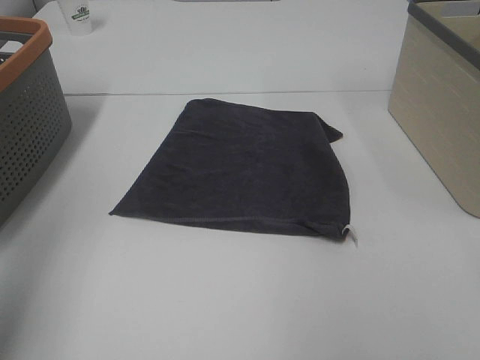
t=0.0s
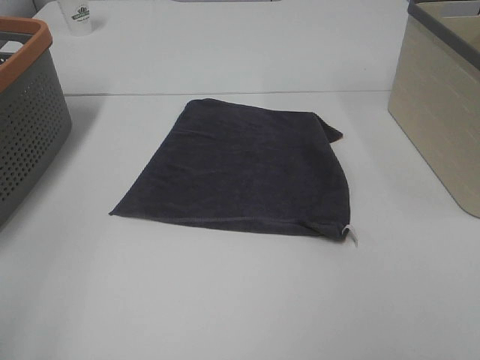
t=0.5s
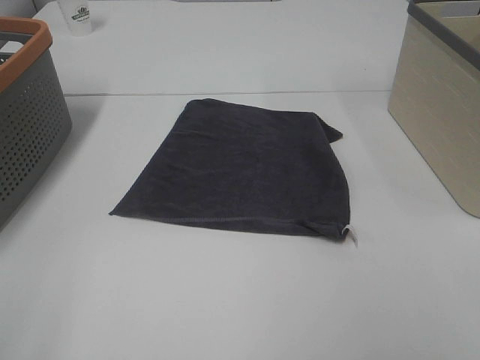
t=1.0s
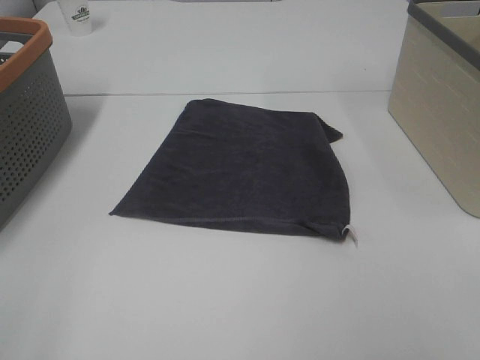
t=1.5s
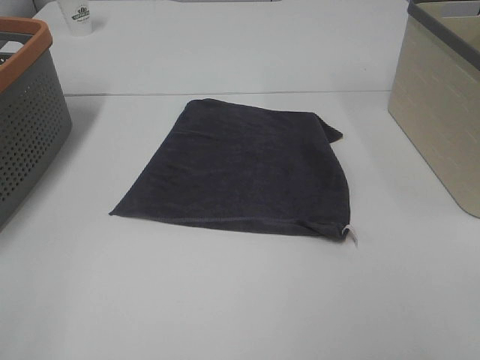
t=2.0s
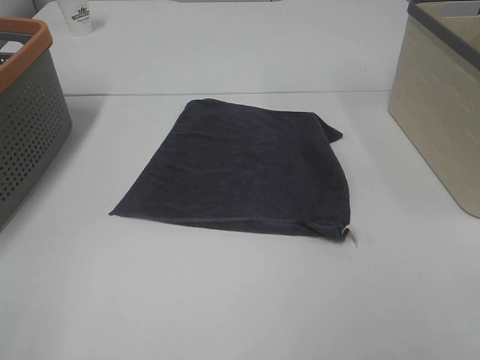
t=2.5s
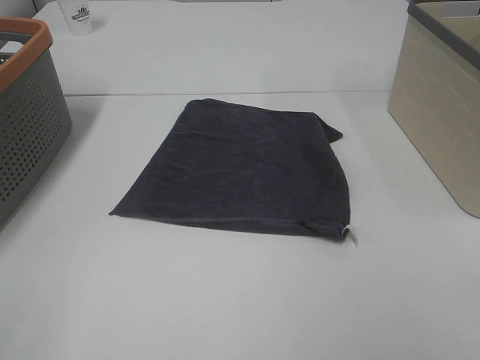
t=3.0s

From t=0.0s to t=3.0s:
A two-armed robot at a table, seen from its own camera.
Task of the whole recording: Remove the towel and place it.
From t=0.0s to t=1.5s: The left gripper shifts some 15 cm backward and downward.
From t=1.5s to t=3.0s: Both grippers stay about where they are.

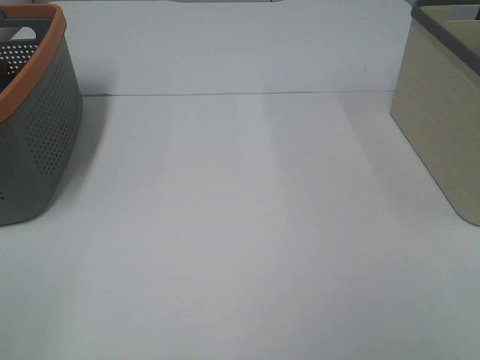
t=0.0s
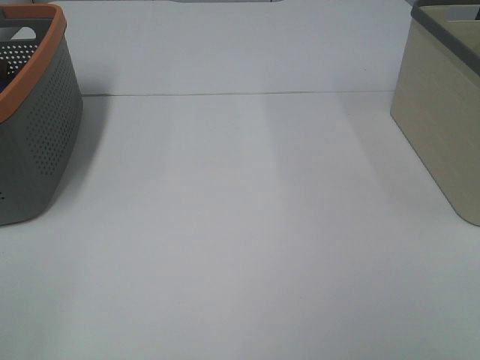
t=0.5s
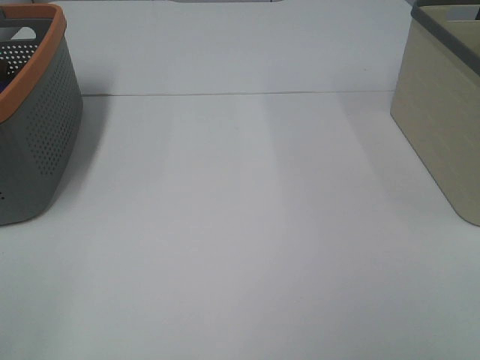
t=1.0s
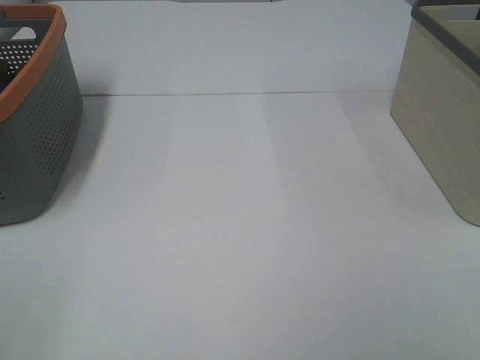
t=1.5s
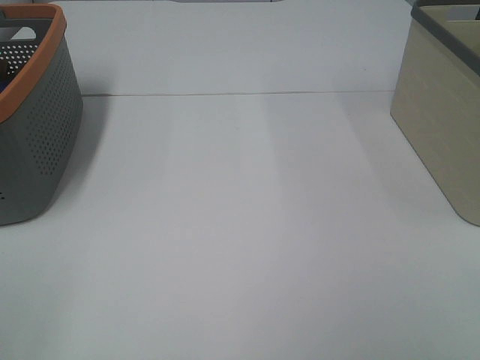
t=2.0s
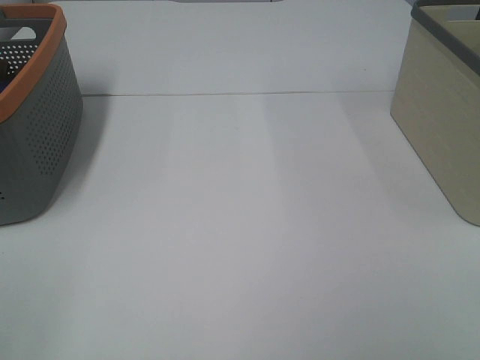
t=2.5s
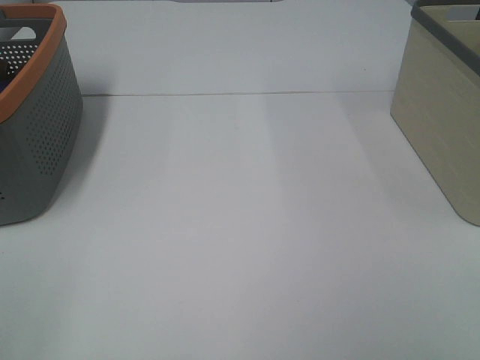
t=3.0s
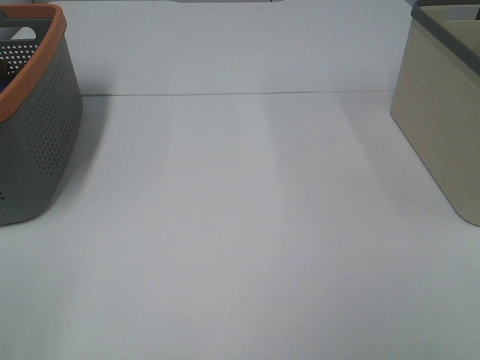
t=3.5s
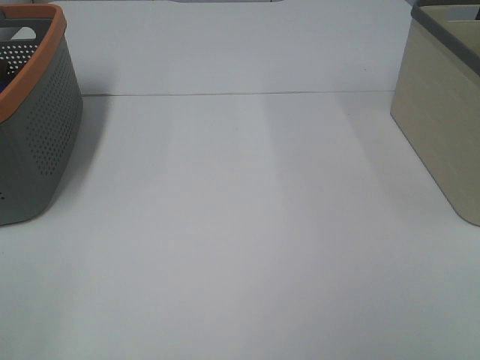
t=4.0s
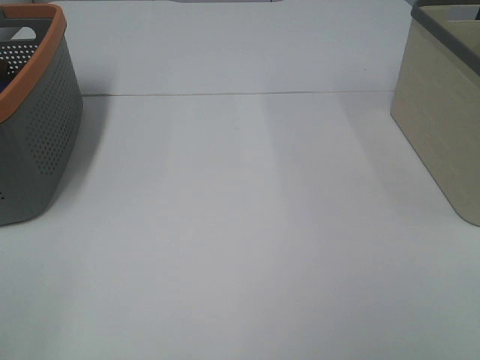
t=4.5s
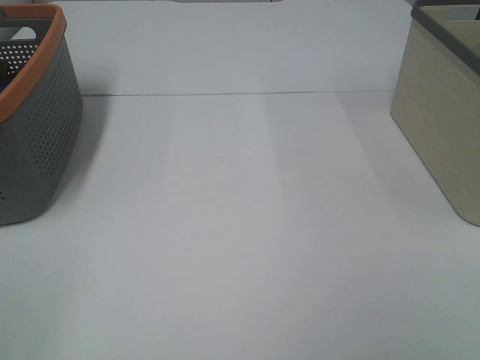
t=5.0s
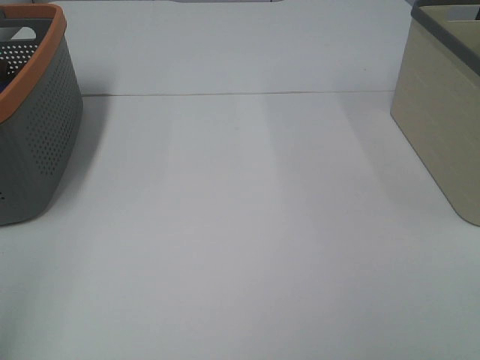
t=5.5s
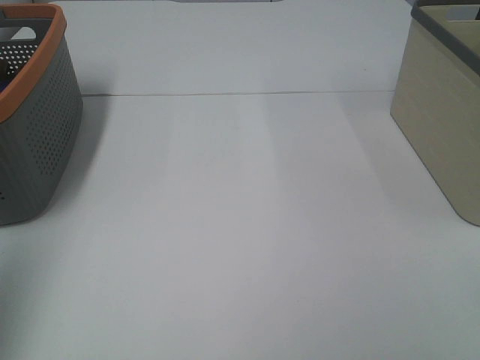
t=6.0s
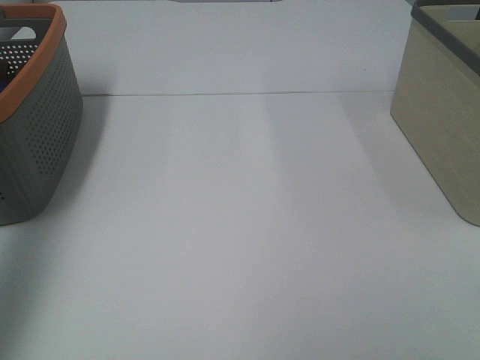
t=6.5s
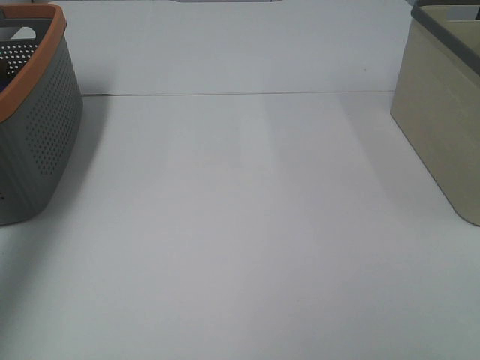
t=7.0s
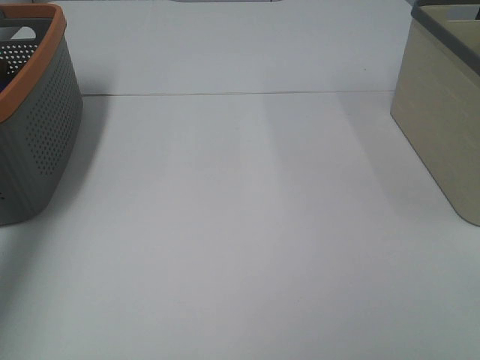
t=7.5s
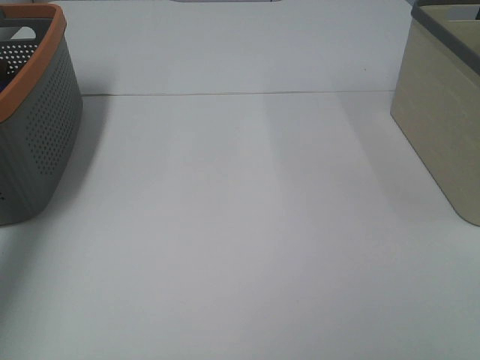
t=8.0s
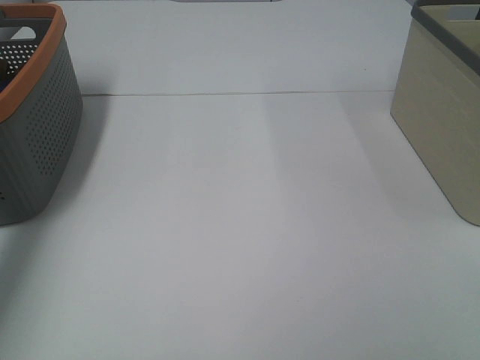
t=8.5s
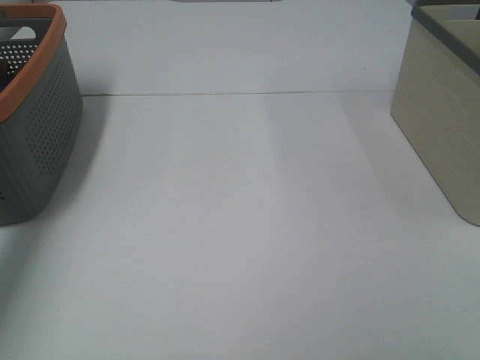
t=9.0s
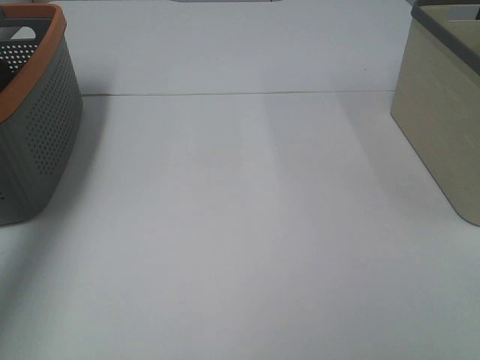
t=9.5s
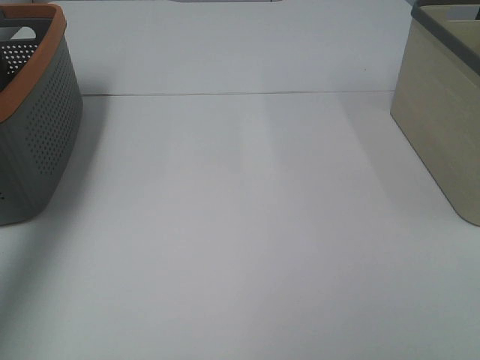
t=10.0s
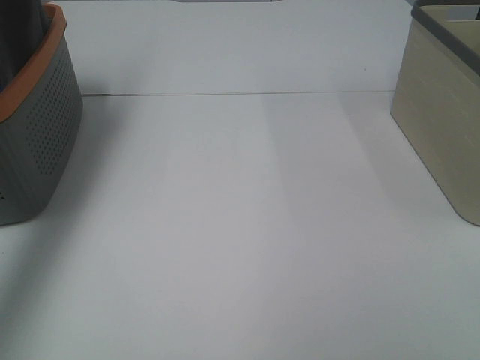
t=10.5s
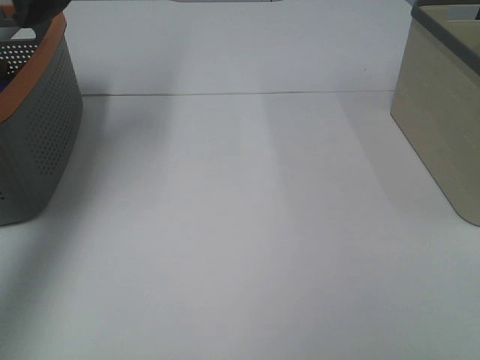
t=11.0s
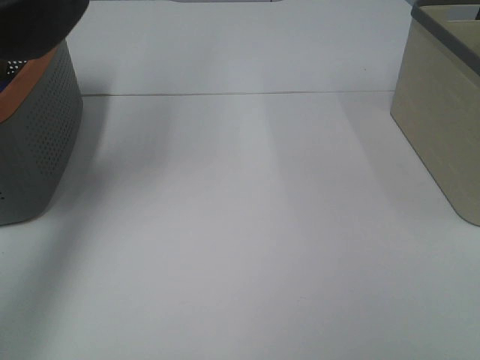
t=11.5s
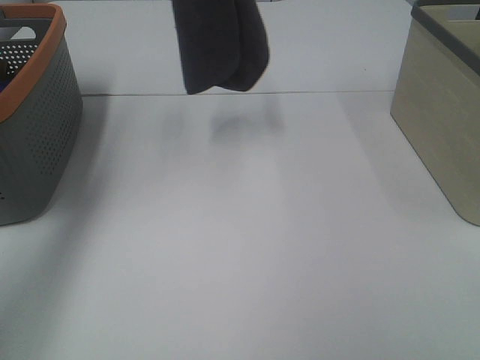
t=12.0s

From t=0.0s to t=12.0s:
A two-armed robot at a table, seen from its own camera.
Task of the whole recording: Remove the towel and place it.
From t=0.0s to t=4.0s: Neither gripper changes place.
From t=4.0s to t=6.0s: The left gripper travels forward and upward by roughly 15 cm.
From t=6.0s to t=8.0s: The left gripper travels forward and downward by about 35 cm.
From t=8.0s to t=10.0s: The left gripper is displaced upward by about 10 cm, and closes its fingers.
From t=10.0s to t=12.0s: The left gripper heads to the right and upward, covering approximately 15 cm.

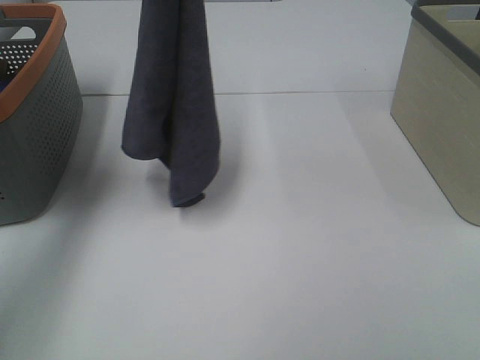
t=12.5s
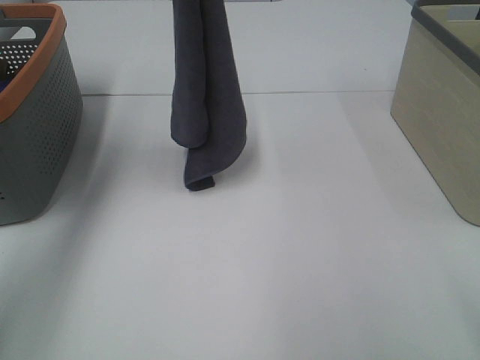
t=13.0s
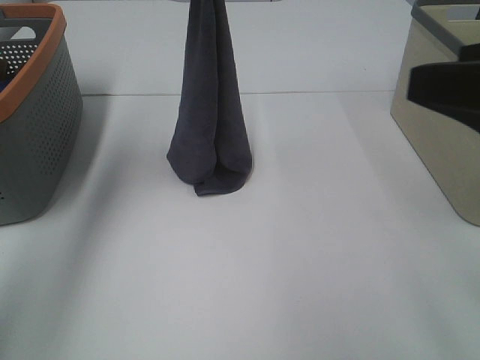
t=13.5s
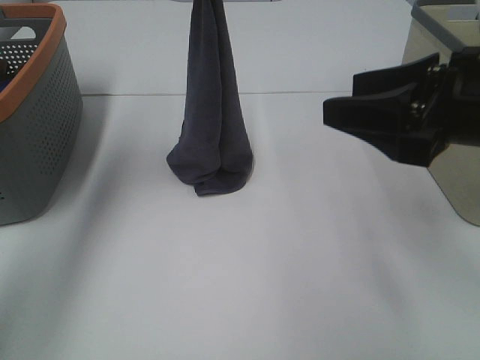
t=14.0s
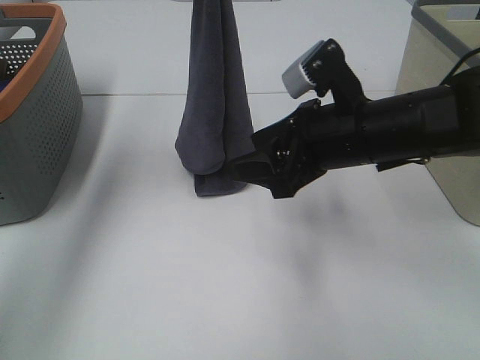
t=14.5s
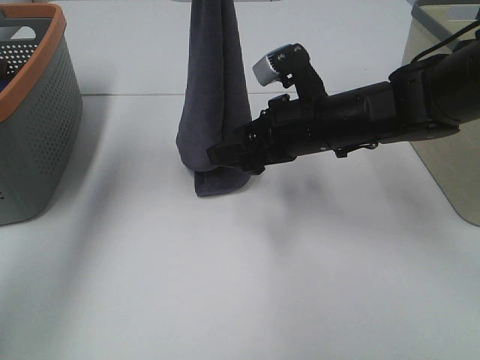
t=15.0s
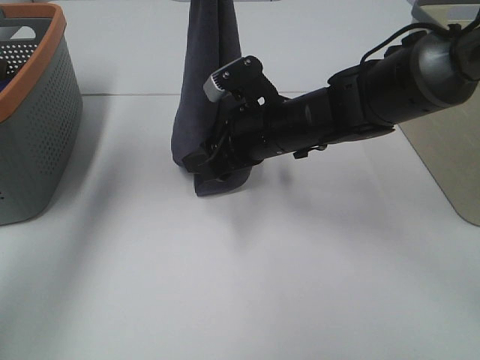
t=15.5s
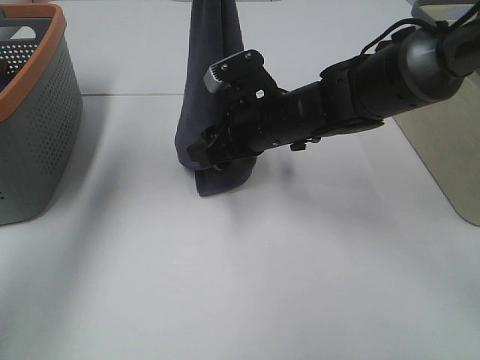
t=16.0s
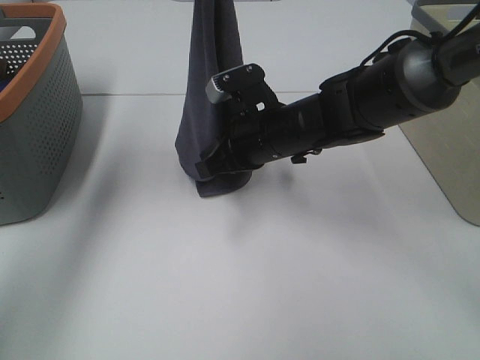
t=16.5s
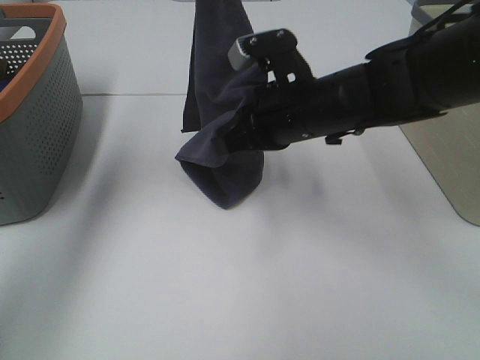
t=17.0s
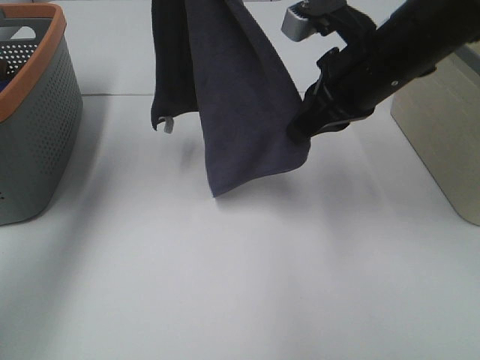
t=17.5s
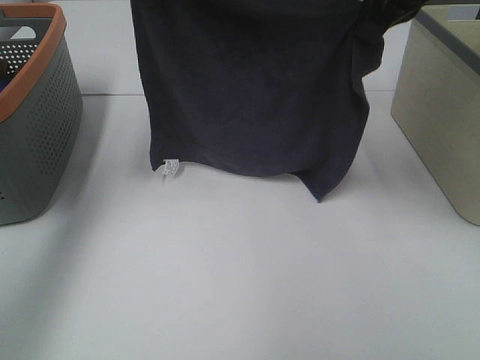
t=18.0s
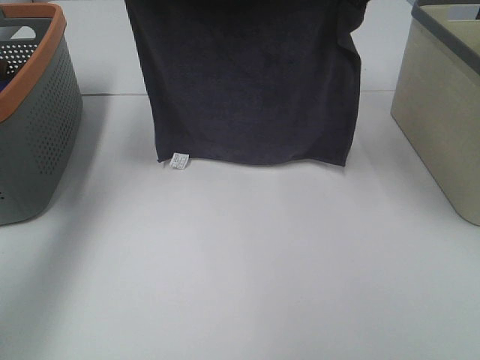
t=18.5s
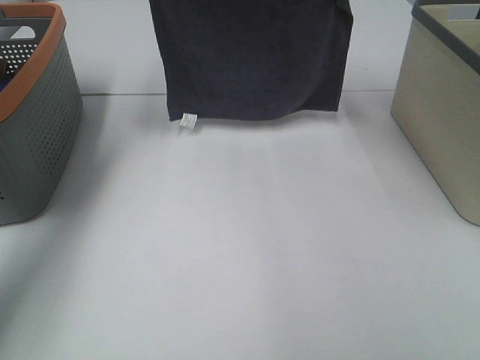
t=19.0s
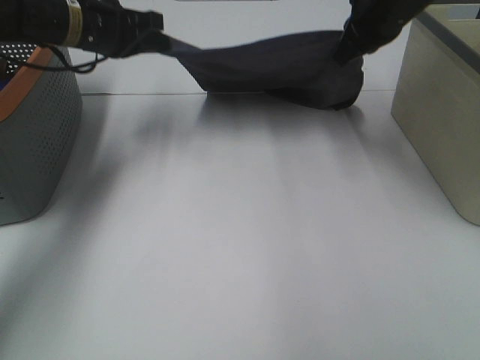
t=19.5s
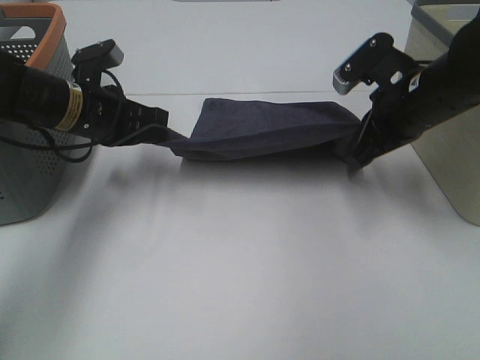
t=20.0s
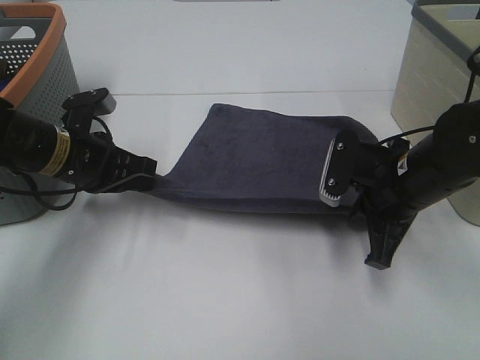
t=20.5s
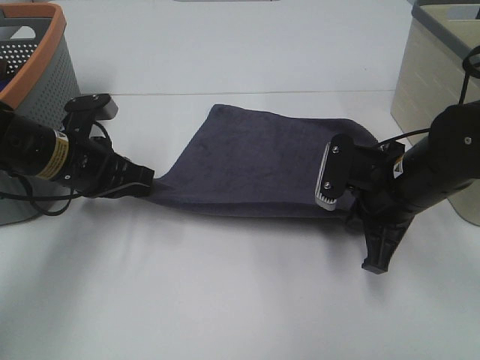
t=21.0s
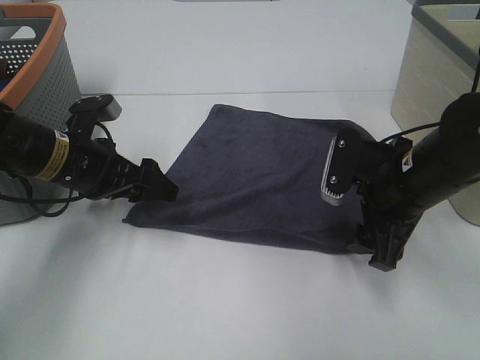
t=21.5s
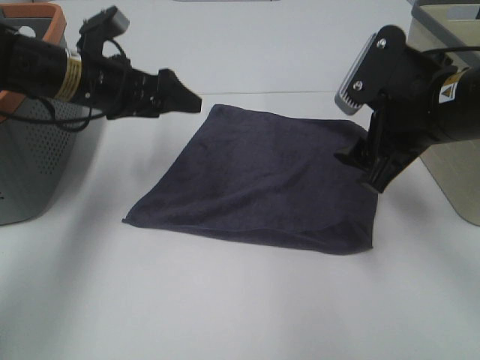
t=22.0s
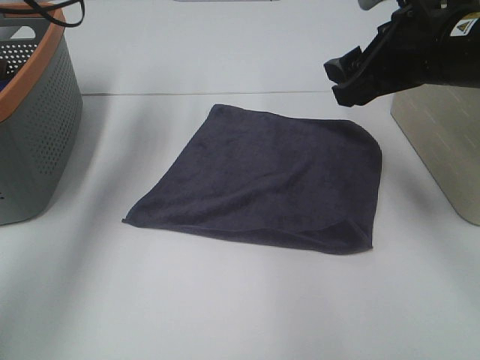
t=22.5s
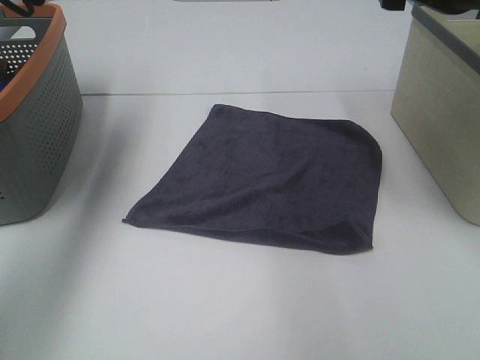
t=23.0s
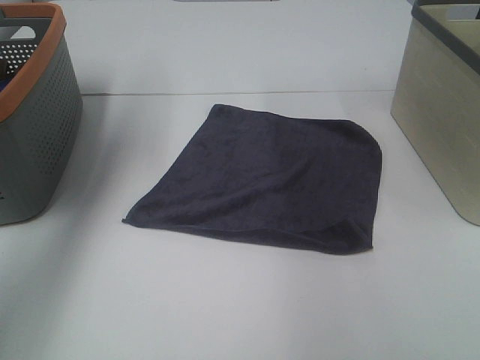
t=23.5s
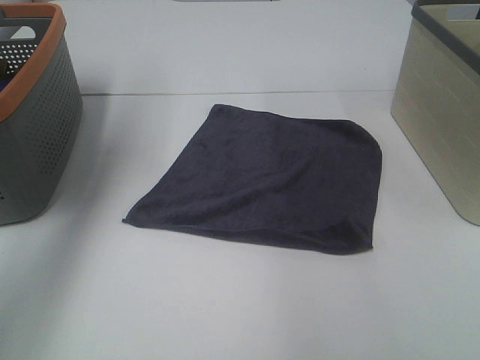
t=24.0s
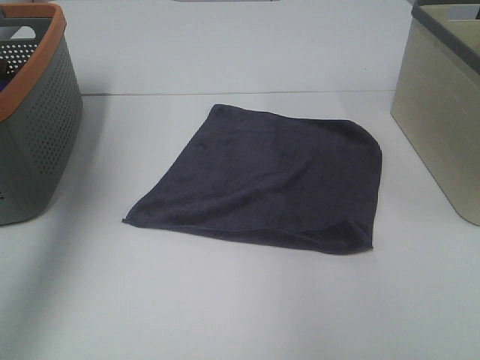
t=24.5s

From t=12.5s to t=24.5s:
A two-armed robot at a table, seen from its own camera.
Task of the whole recording: Remove the towel and place it.
Step, from t=12.5s to t=15.0s: Right hand: grab a corner of the grey towel and straighten it.
Step, from t=15.5s to t=17.0s: Right hand: spread the grey towel flat on the table.
From t=12.5s to t=14.5s: The right gripper is displaced forward and to the left by about 30 cm. The left gripper shifts some 5 cm downward.
From t=14.5s to t=16.5s: The right gripper moves forward, to the left and downward, roughly 10 cm, and closes up.
From t=16.5s to t=18.5s: The left gripper shifts some 5 cm to the left. The right gripper moves upward and to the right, about 25 cm.
From t=18.5s to t=20.5s: The left gripper heads downward, covering some 20 cm; the right gripper heads downward and backward, covering roughly 25 cm.
From t=20.5s to t=22.5s: The left gripper heads upward and forward, covering approximately 20 cm, and opens, while the right gripper heads upward, covering some 15 cm, and opens.
From t=22.5s to t=24.5s: The right gripper heads upward and to the right, covering roughly 20 cm, while the left gripper is displaced backward, upward and to the left by approximately 20 cm.
